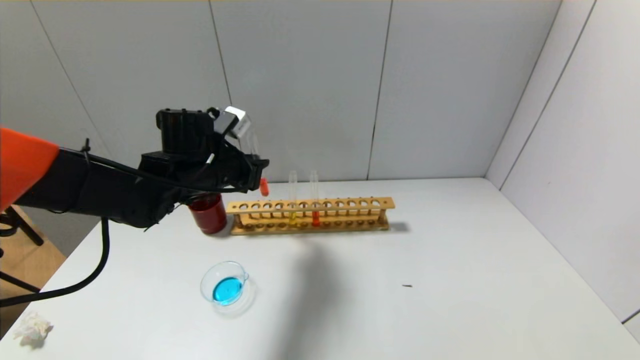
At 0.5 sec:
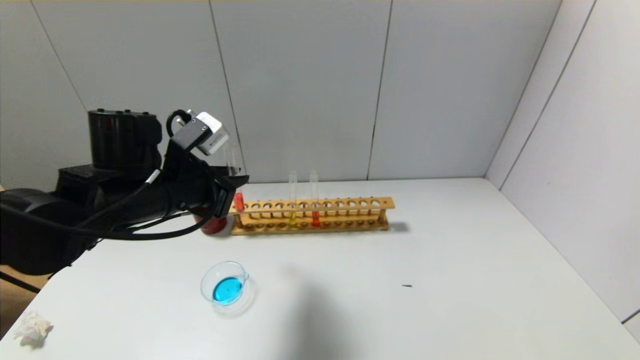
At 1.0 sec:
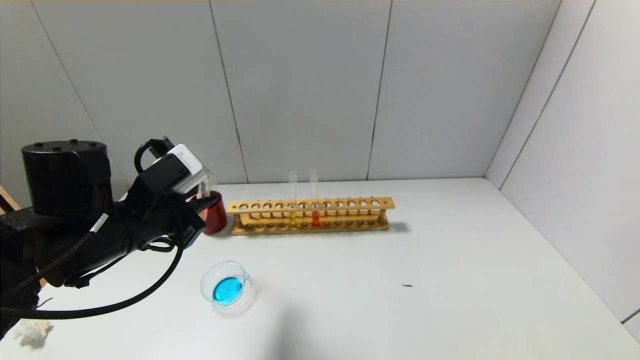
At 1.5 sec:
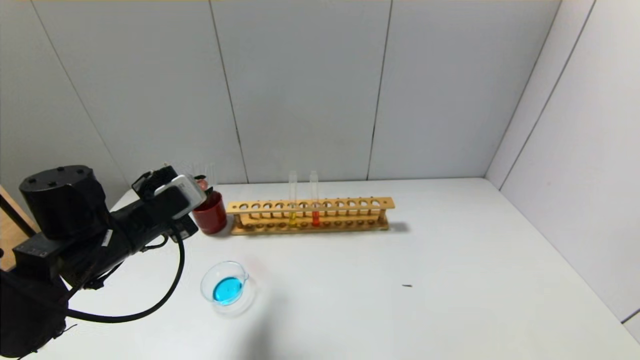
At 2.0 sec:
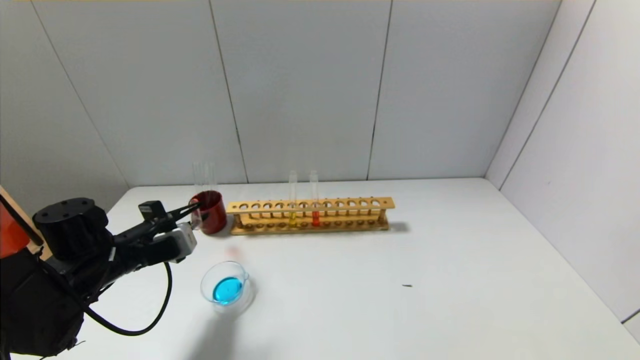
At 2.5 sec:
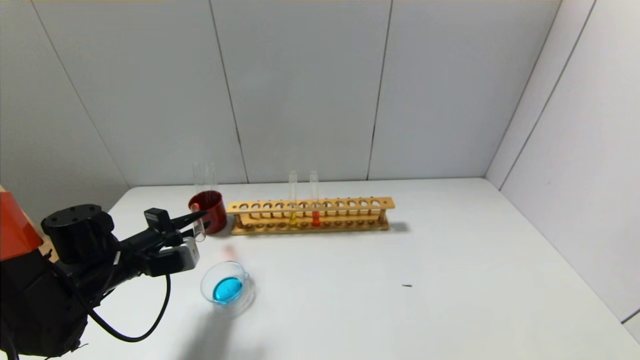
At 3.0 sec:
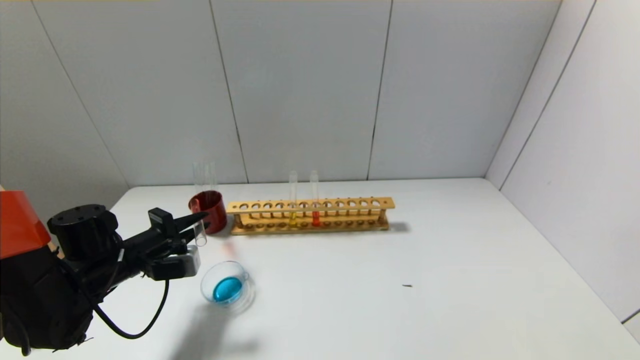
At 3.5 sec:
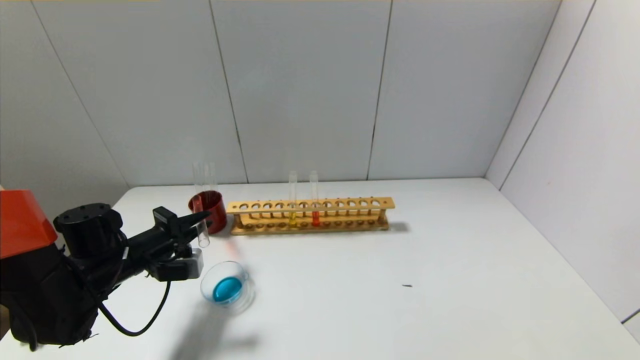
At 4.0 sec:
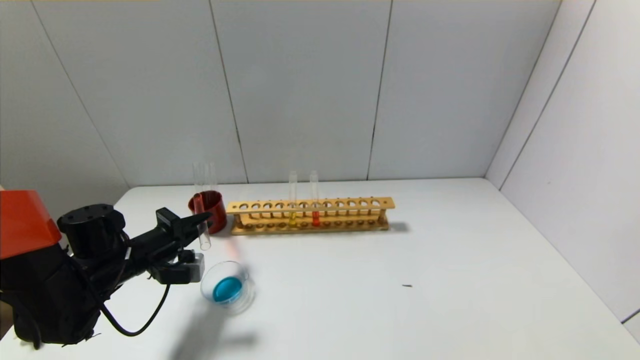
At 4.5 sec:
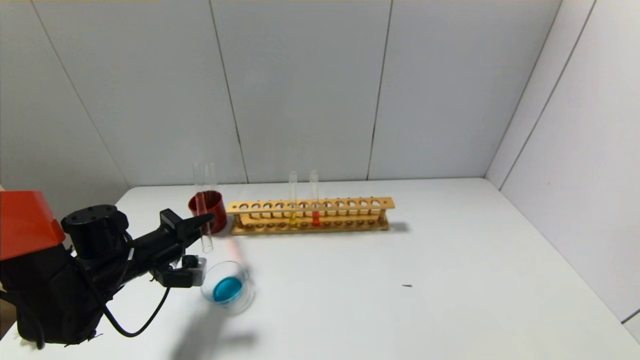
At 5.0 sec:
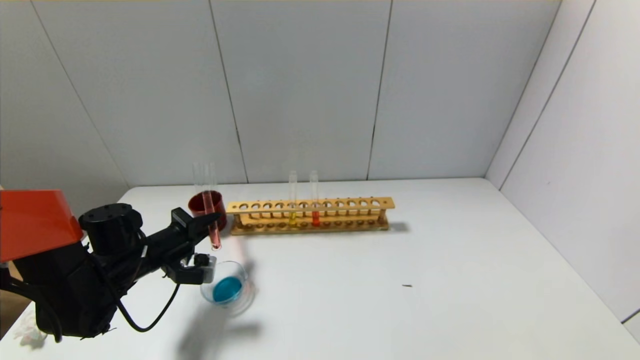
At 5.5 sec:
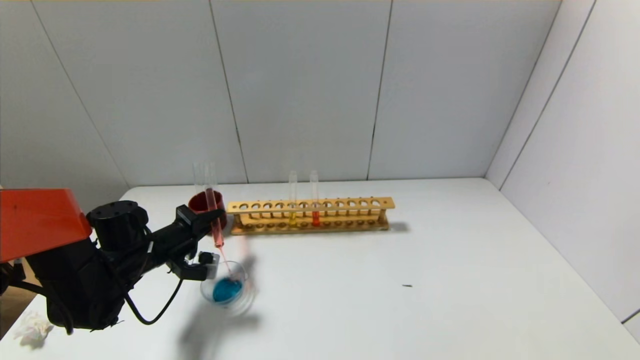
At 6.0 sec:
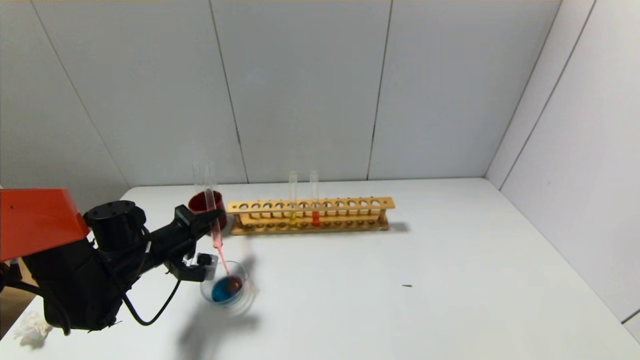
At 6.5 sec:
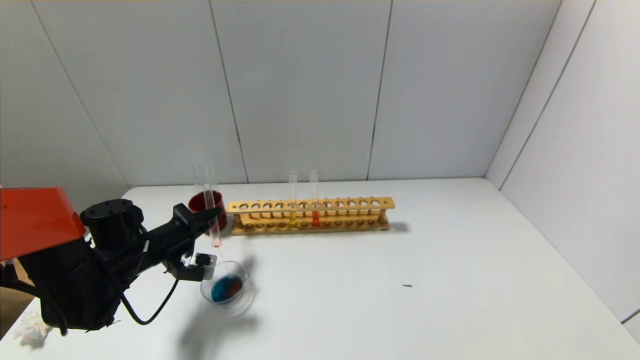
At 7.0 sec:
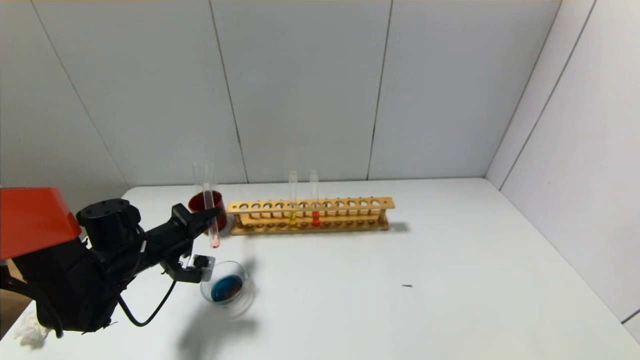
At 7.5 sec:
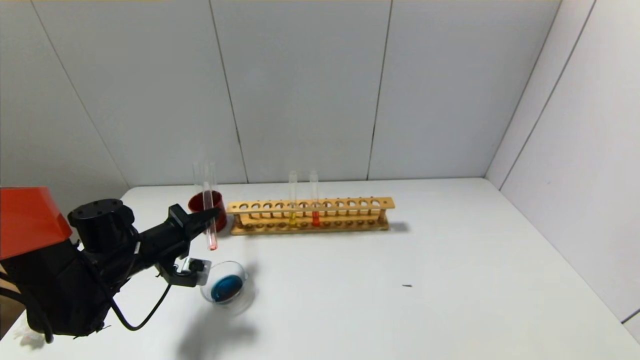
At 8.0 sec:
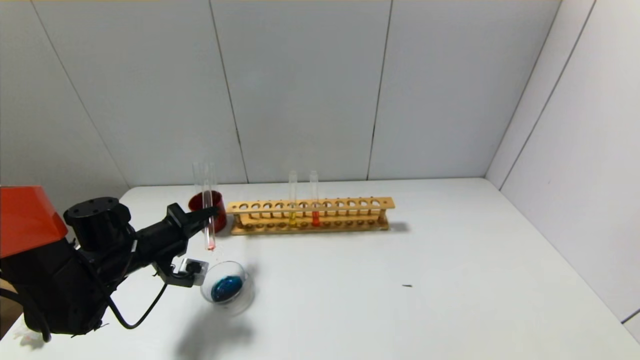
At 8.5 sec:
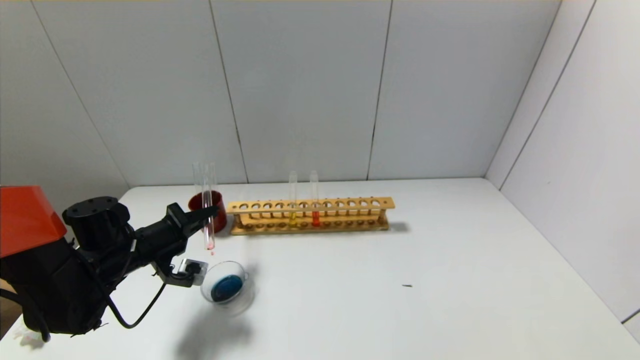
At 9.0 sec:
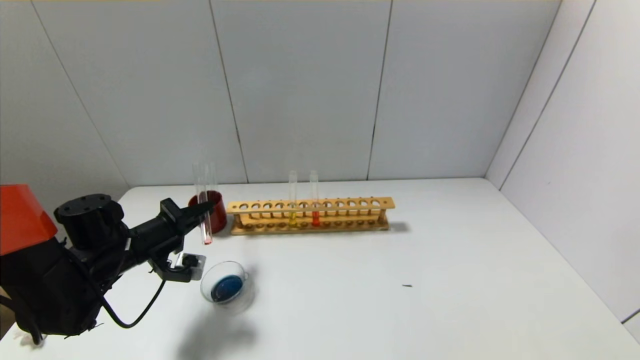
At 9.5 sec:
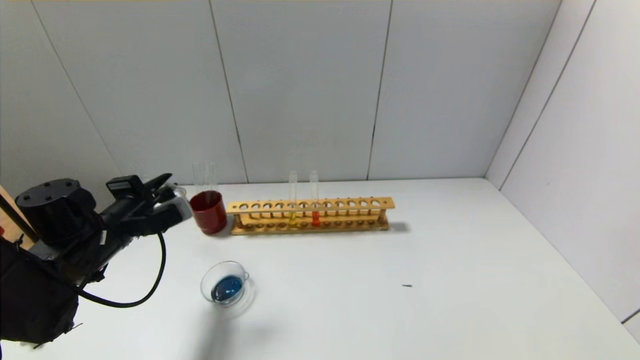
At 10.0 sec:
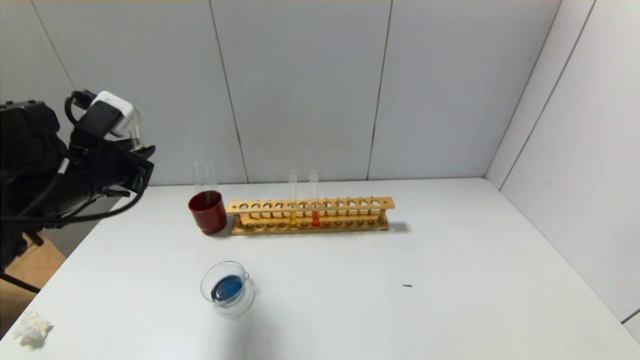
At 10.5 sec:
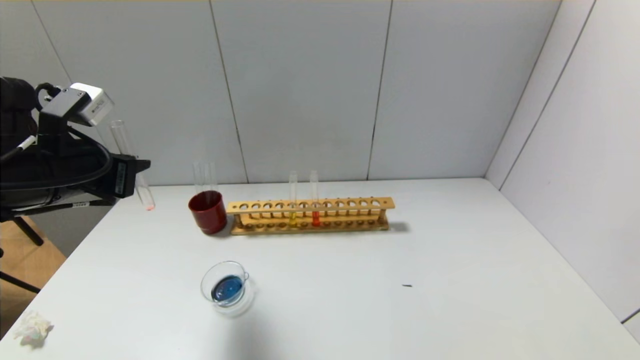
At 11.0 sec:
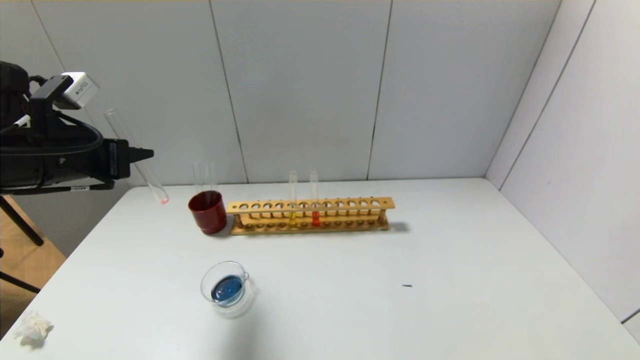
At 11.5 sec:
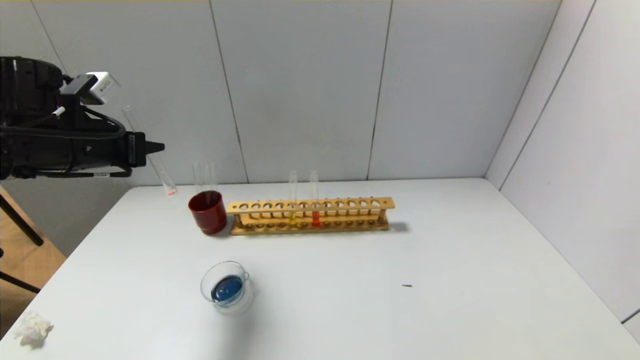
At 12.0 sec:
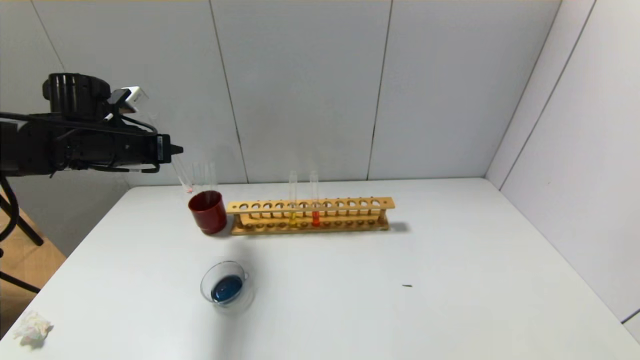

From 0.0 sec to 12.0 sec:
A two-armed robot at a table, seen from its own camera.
Step, from 0.0 sec to 9.0 sec: Pour the red reagent into the graduated cylinder with the left gripper.
From 0.0 sec to 2.0 sec: The left gripper goes approximately 15 cm to the left, downward and backward.
From 4.0 sec to 6.0 sec: The grippers stay close to where they were, moving slightly.
From 6.0 sec to 8.0 sec: The grippers stay close to where they were, moving slightly.
From 8.0 sec to 10.0 sec: The left gripper shifts roughly 15 cm upward.
From 10.0 sec to 12.0 sec: The left gripper travels forward by about 10 cm.

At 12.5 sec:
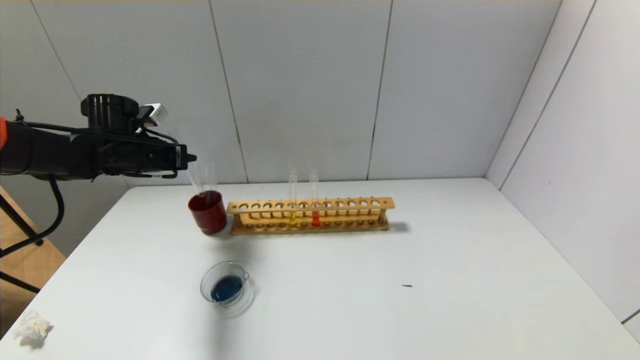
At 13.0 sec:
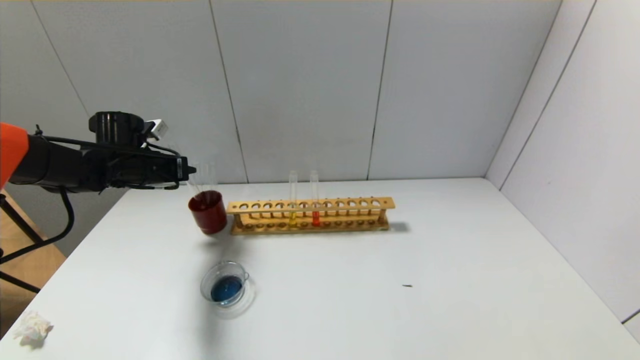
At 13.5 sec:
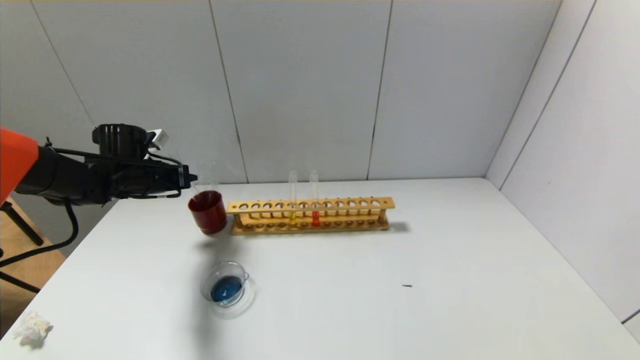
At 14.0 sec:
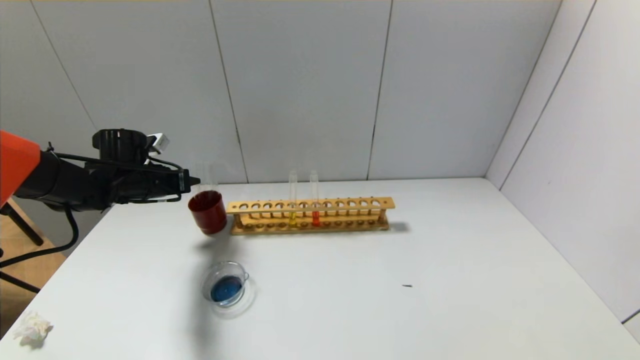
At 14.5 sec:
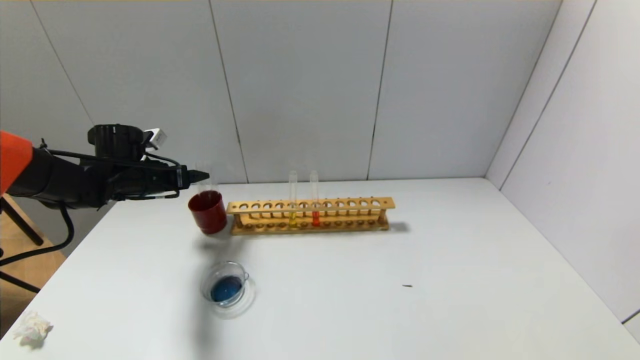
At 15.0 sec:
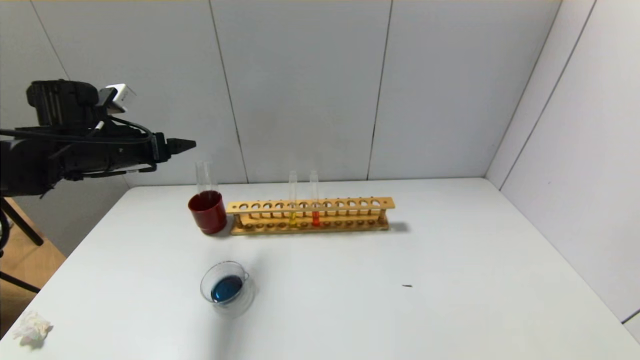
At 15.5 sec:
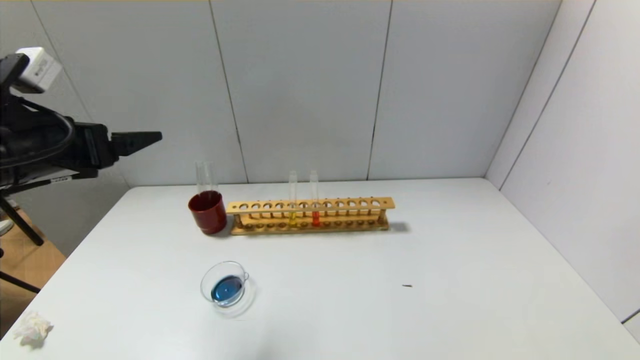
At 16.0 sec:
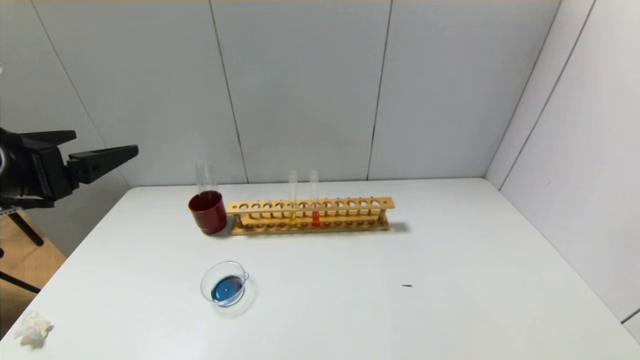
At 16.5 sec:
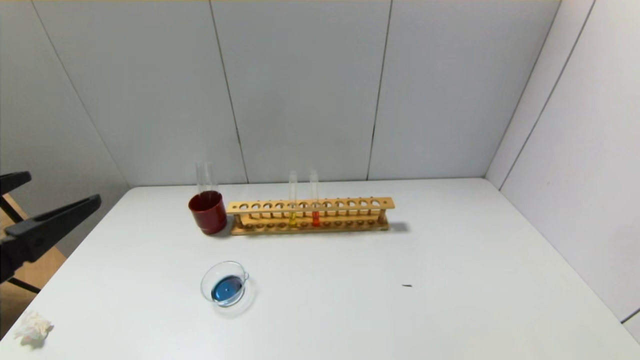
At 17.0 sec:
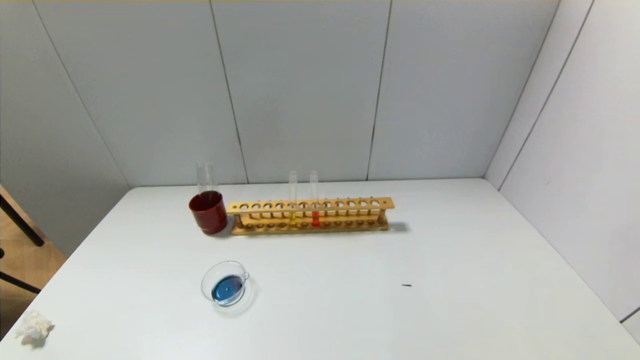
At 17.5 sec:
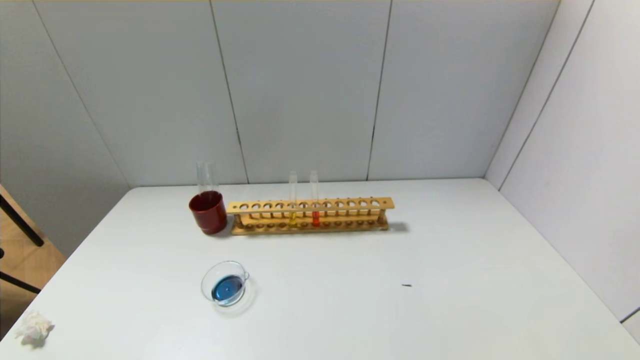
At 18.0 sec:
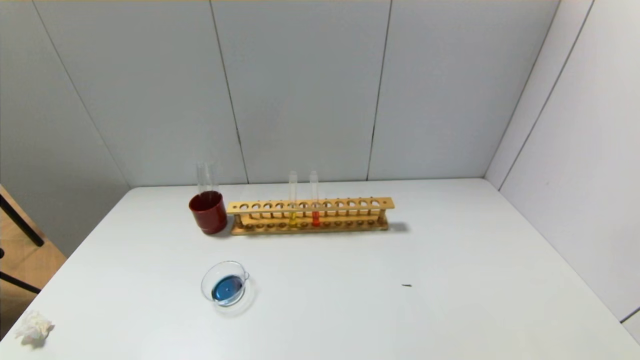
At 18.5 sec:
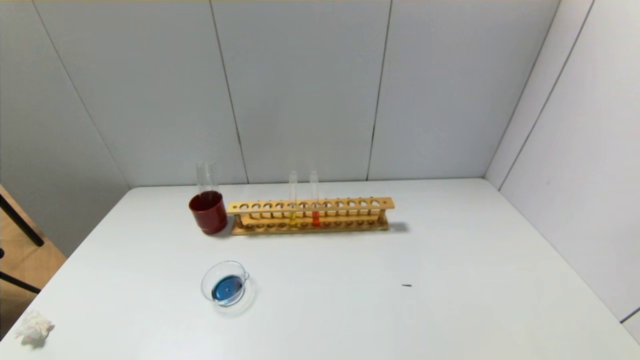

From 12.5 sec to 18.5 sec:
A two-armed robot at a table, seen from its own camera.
From 12.5 sec to 14.5 sec: The left gripper opens its fingers.
From 14.5 sec to 16.5 sec: The left gripper is displaced backward by about 30 cm.
From 16.5 sec to 18.5 sec: The left gripper moves downward and backward, some 20 cm.
